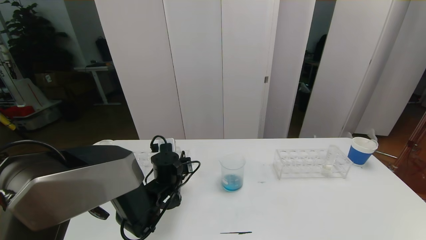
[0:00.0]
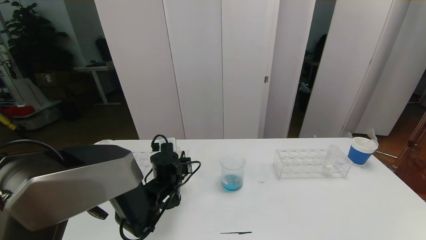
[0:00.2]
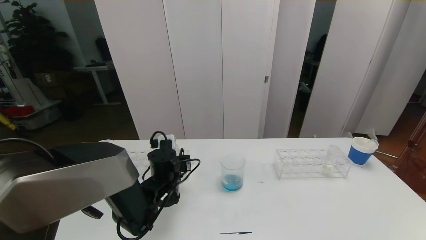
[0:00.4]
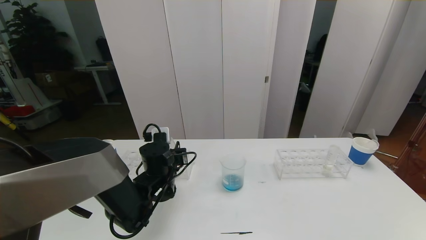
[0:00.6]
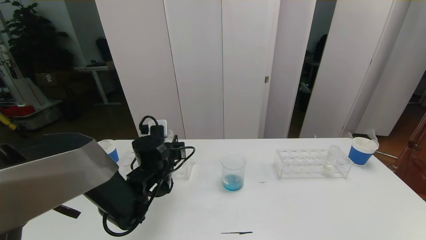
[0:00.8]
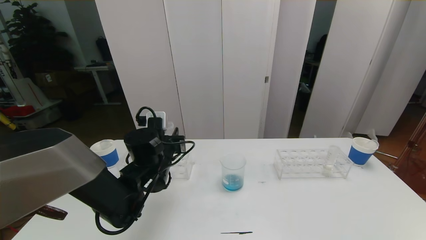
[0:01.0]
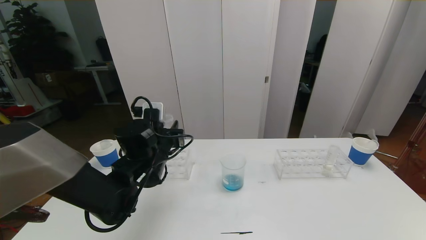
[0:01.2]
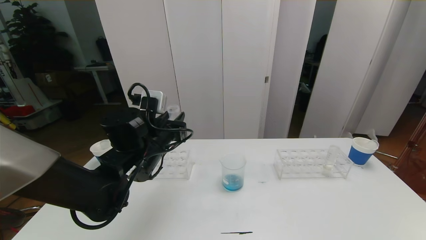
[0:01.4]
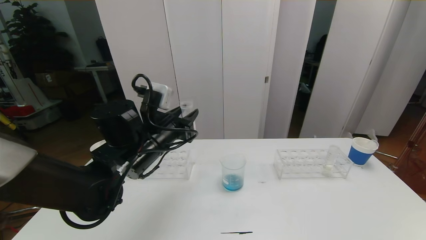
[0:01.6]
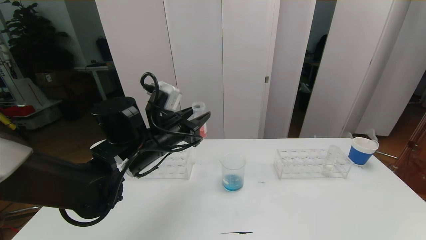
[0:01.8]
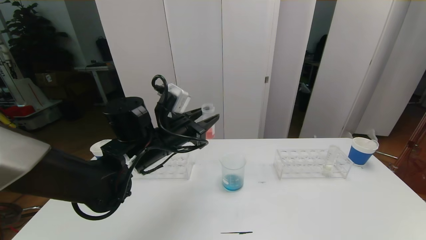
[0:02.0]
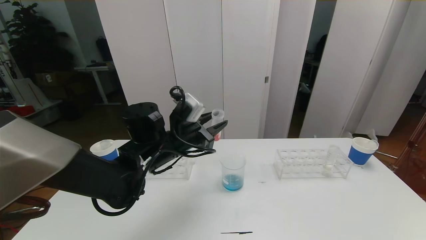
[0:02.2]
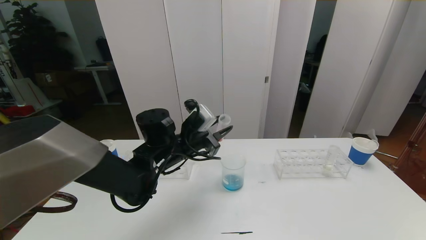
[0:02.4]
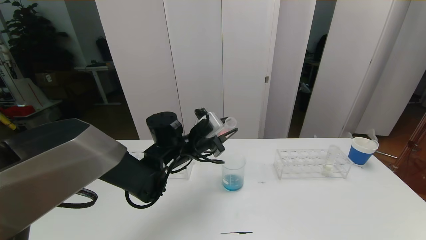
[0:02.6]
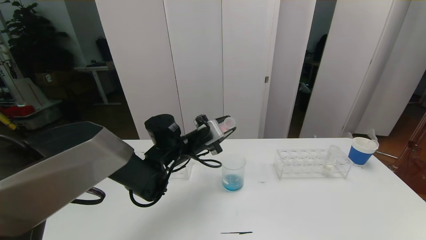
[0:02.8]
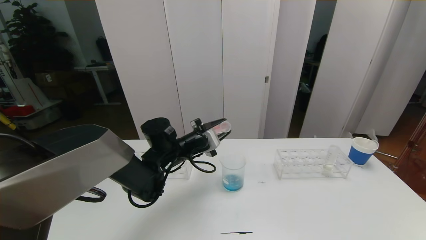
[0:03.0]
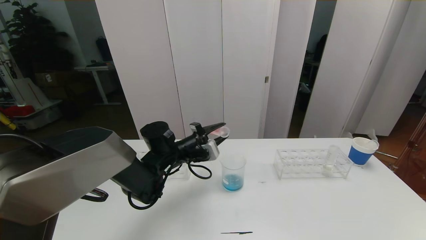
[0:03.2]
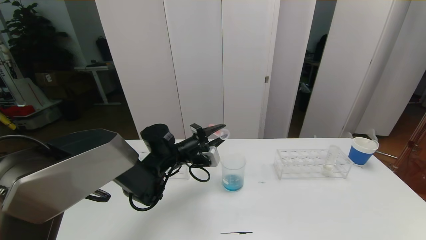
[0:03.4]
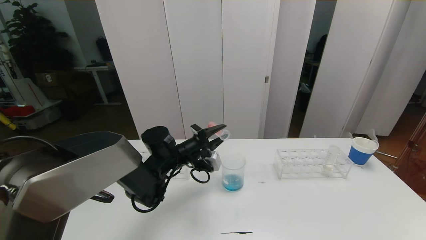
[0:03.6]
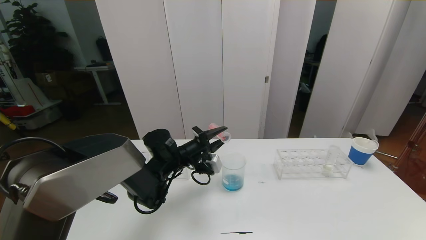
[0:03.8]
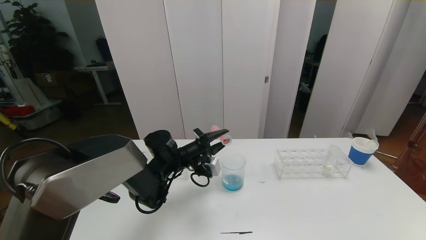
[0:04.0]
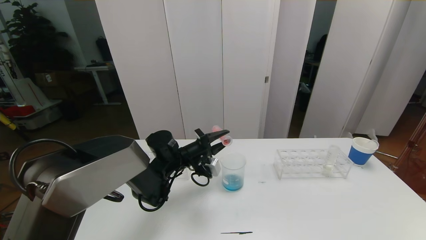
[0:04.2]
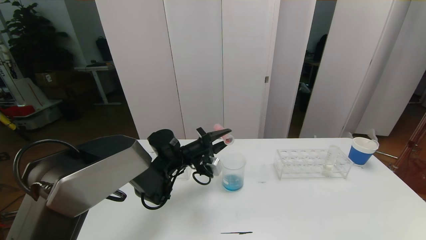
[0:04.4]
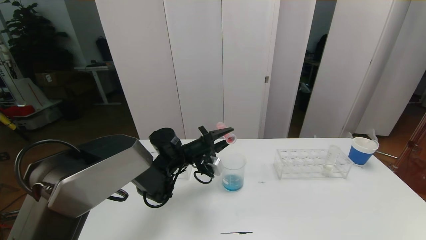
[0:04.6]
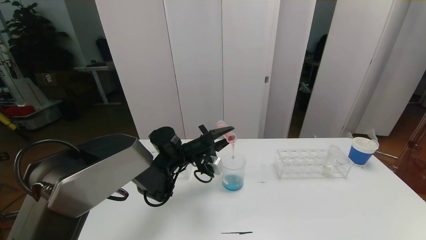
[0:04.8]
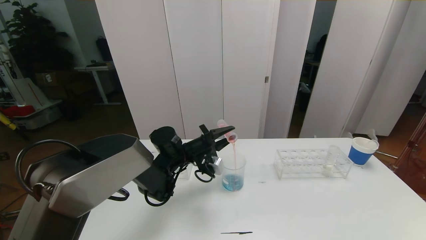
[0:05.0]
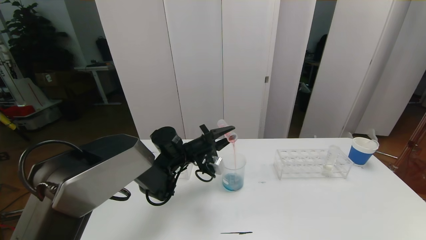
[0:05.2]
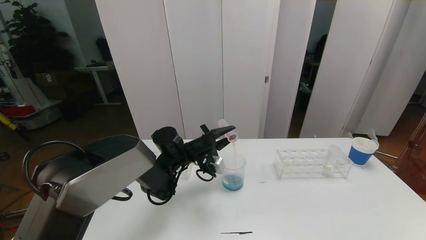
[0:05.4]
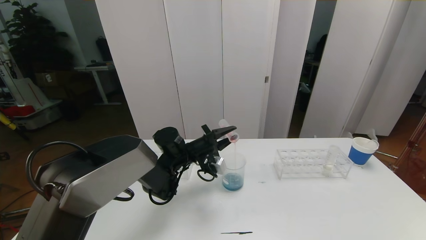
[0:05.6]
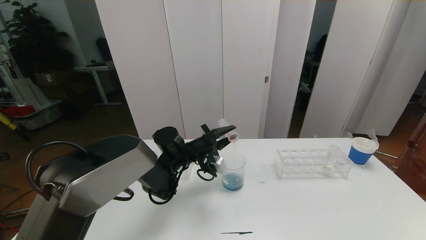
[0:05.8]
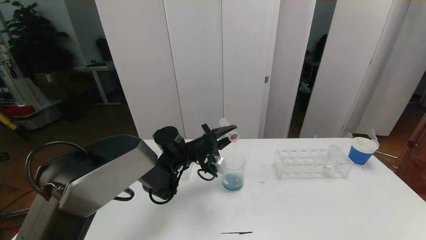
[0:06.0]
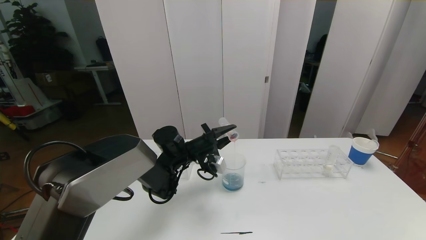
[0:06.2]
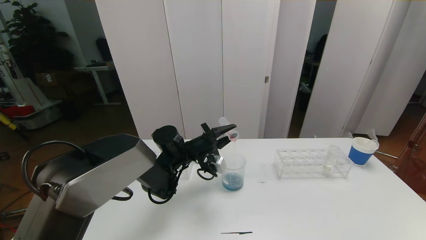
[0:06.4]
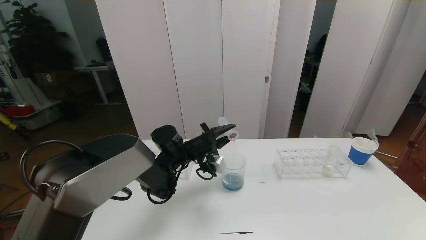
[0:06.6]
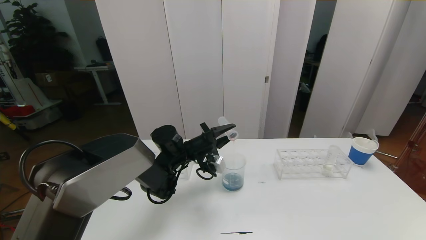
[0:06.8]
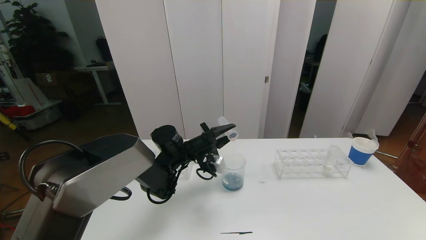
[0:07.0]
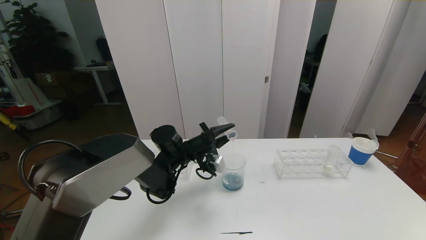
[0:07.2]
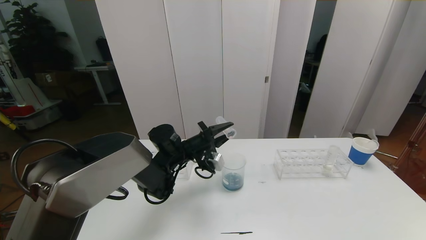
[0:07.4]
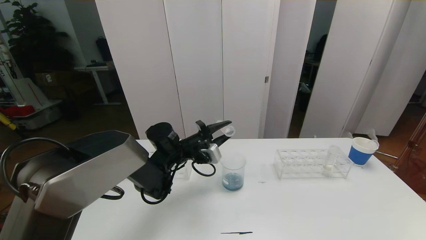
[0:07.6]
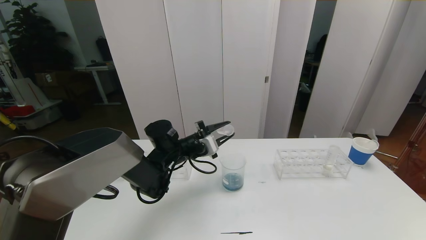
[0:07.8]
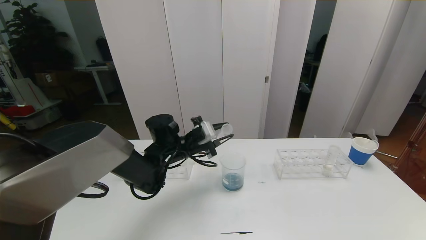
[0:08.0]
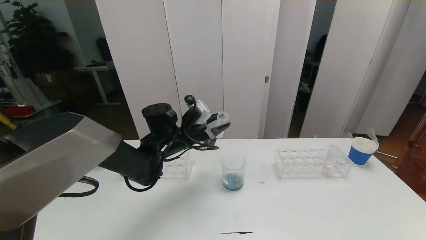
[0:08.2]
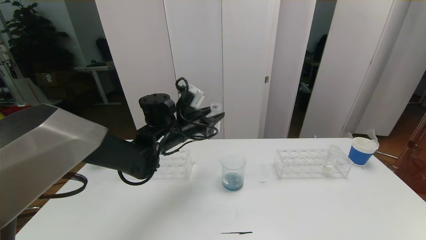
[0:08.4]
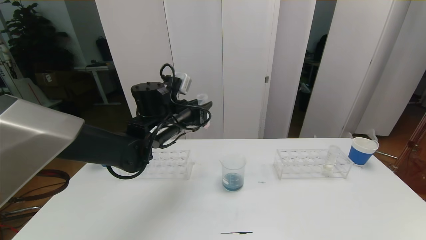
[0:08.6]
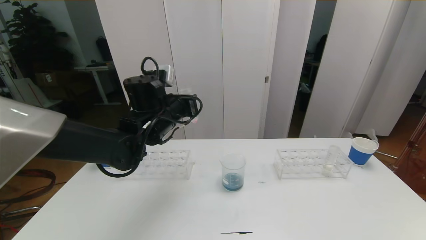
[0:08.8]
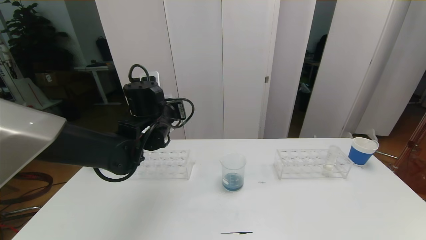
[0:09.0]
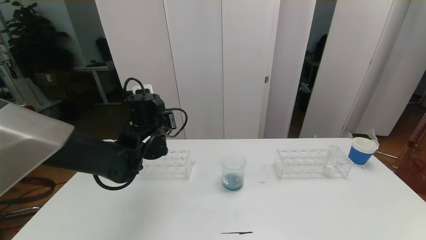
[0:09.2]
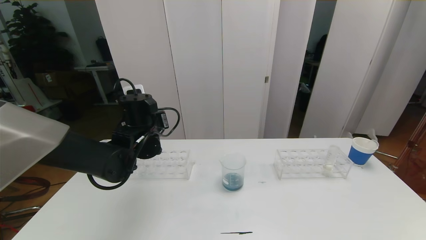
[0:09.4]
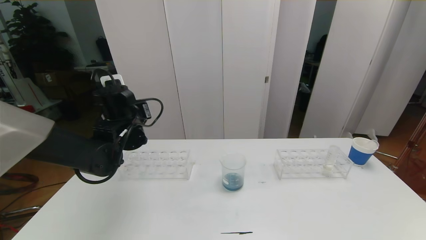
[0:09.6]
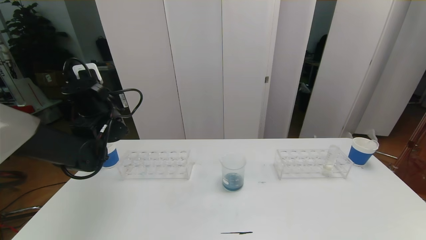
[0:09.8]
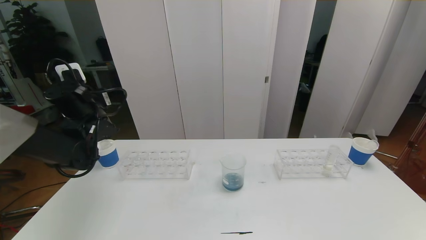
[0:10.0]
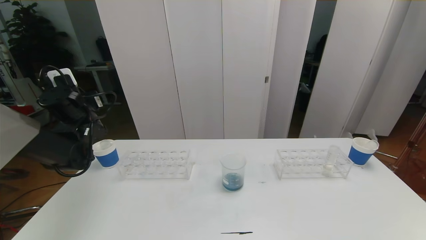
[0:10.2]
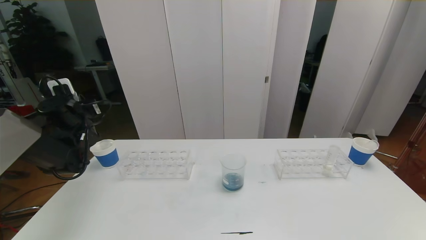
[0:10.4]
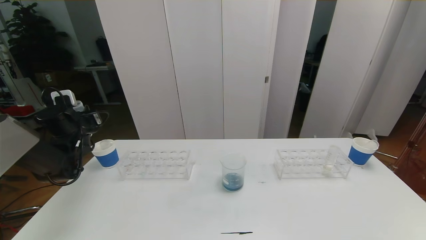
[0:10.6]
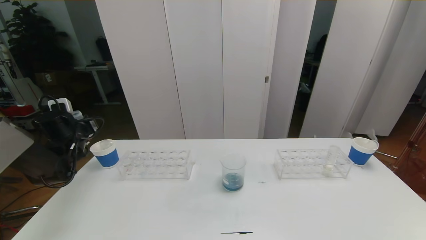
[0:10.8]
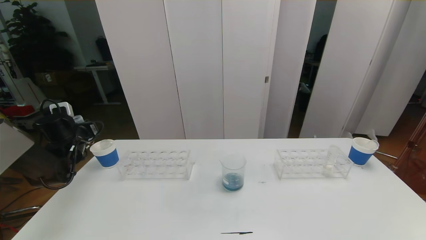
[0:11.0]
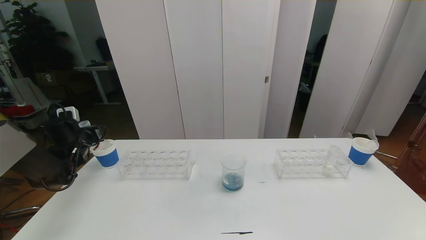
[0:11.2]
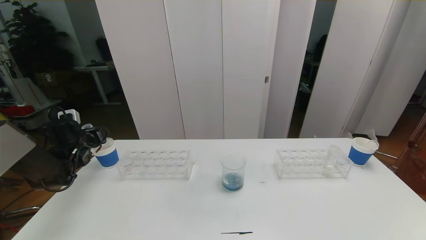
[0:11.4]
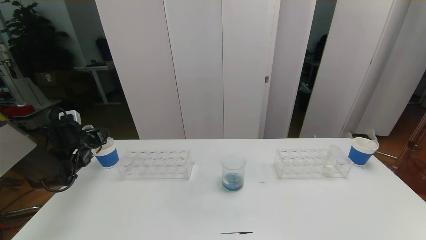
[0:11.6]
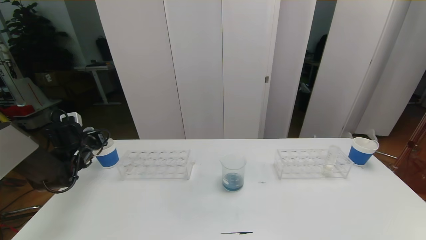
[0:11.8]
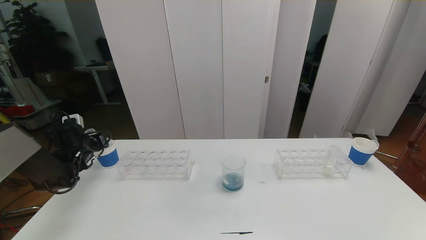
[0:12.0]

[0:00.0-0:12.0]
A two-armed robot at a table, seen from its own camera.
Task of the whole recording: pick up the test tube with red pigment the test tube with blue pigment and the test tube with white pigment by grippers and pour them into the beaker.
0:00.0 to 0:01.6: The left gripper shifts some 15 cm upward.
0:01.6 to 0:03.0: The left gripper travels forward and downward by about 10 cm.
0:04.4 to 0:07.6: The grippers stay close to where they were, moving slightly.
0:07.6 to 0:09.0: The left gripper shifts approximately 10 cm upward.
0:09.0 to 0:10.4: The left gripper goes approximately 20 cm to the left.
0:10.4 to 0:12.0: The left gripper is displaced downward by approximately 10 cm.

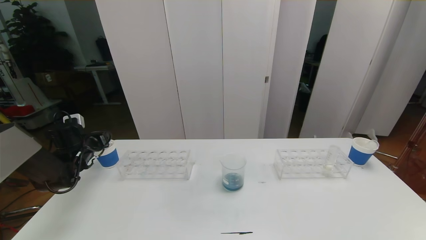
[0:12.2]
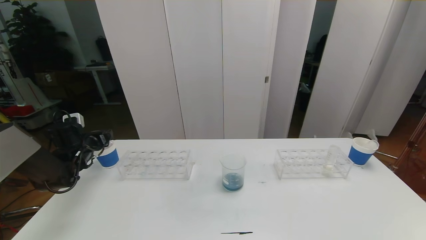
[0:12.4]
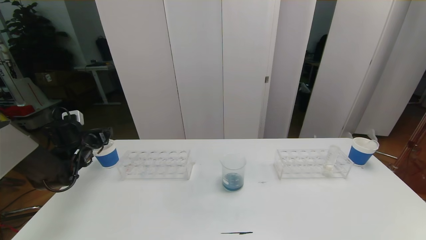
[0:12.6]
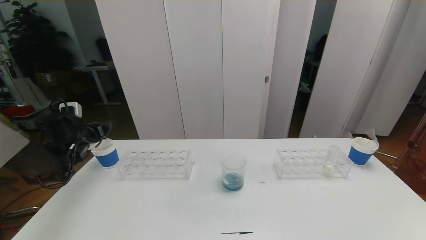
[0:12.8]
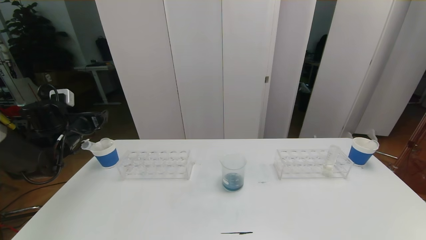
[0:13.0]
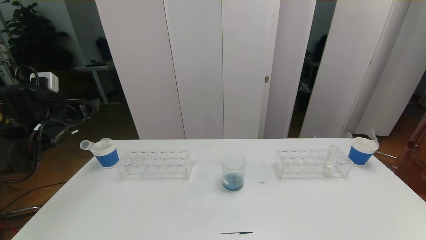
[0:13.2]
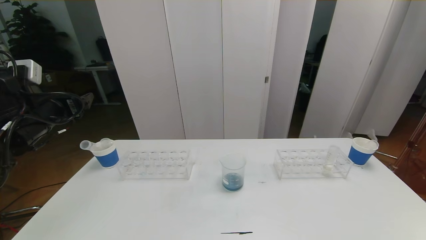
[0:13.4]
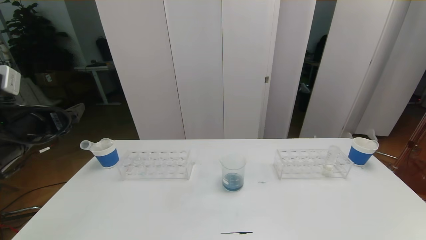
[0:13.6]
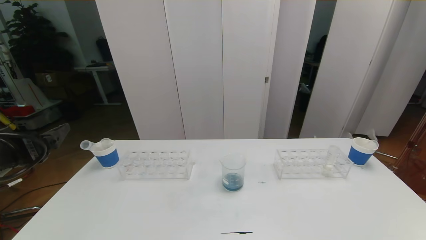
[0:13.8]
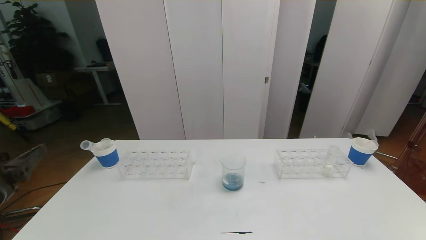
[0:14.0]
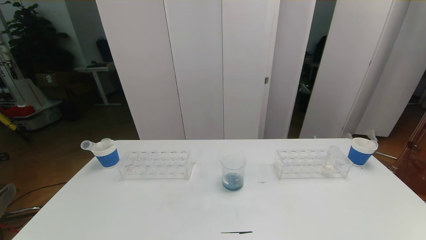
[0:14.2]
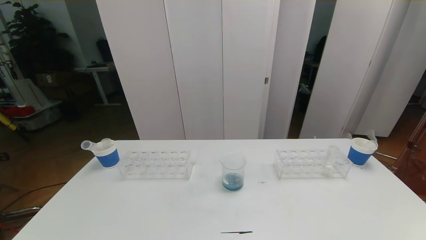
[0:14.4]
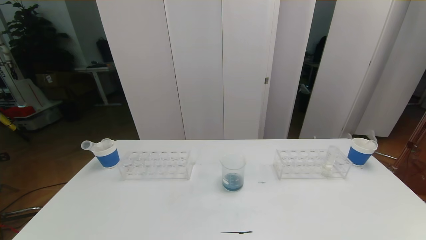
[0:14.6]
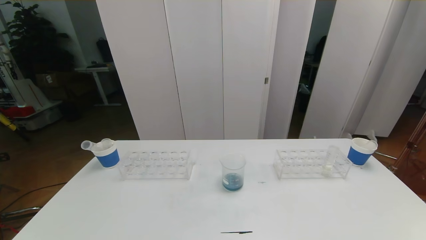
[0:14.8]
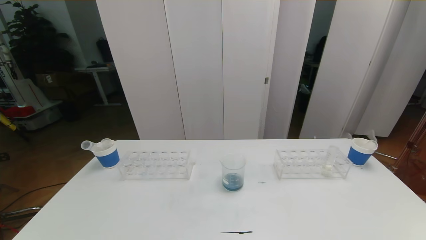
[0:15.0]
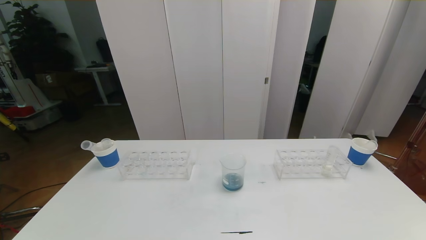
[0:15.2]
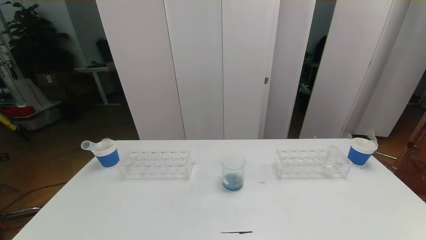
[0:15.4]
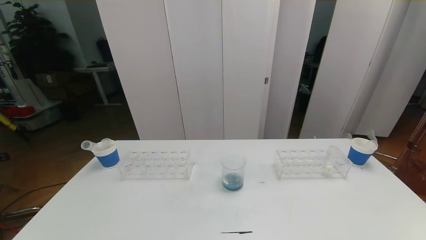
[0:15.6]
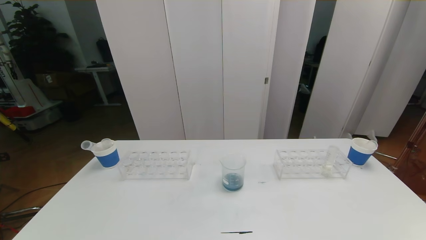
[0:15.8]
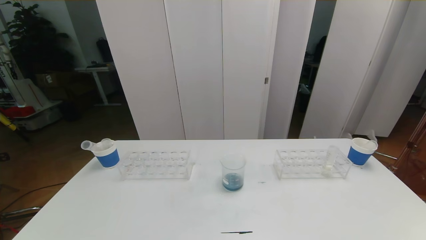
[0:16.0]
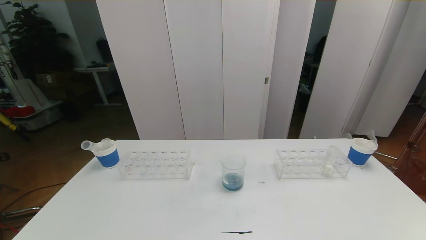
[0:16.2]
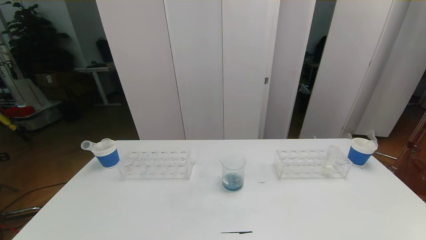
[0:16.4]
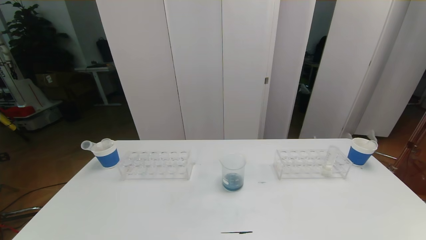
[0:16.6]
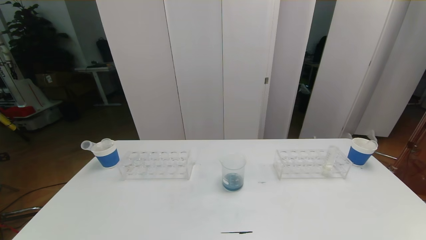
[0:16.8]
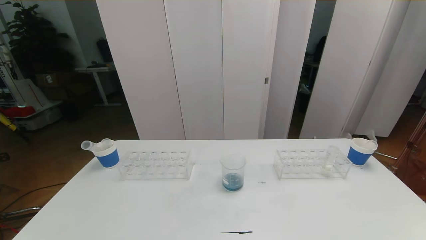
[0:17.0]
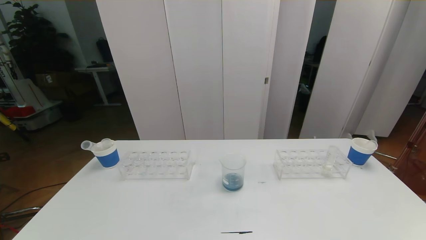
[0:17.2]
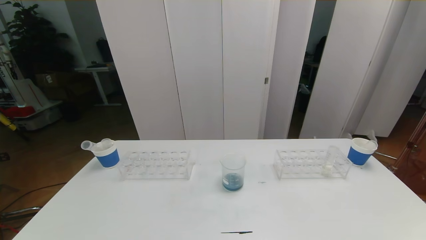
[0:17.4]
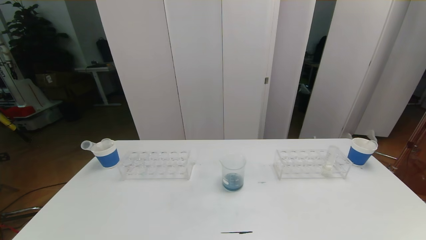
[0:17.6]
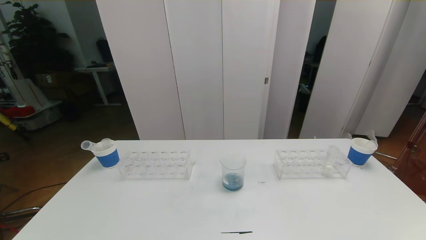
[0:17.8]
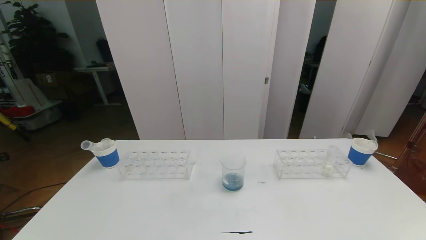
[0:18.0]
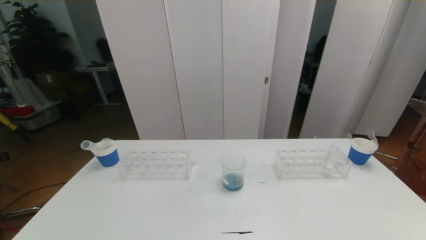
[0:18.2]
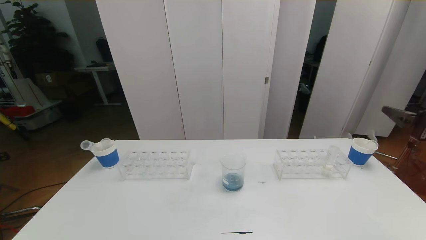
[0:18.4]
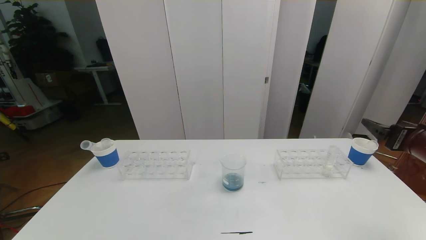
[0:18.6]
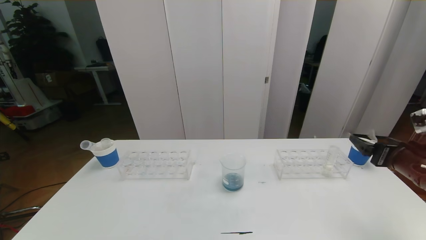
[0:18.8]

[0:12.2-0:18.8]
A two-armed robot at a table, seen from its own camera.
Task of the whole recording: pick up the test tube with red pigment the test tube with blue pigment and the test tube with white pigment by grippers and pour them into the beaker.
Step, 0:12.2 to 0:14.2: Pour the orange reagent into the graduated cylinder and place the test tube into the paper cup.
0:12.2 to 0:13.8: The left gripper moves backward, upward and to the right, about 30 cm.
0:17.2 to 0:18.8: The right gripper moves forward, some 25 cm.
